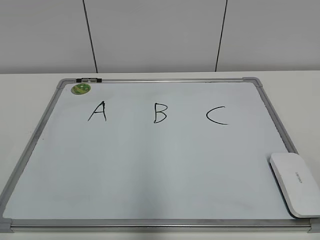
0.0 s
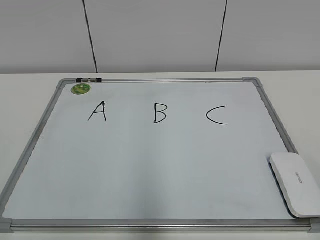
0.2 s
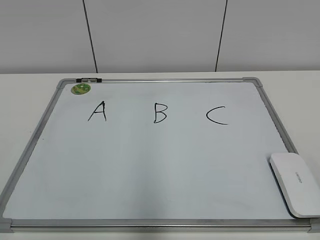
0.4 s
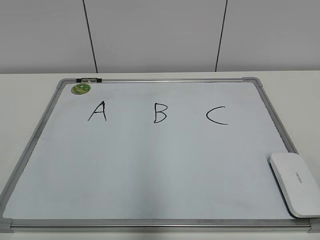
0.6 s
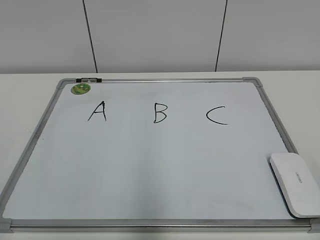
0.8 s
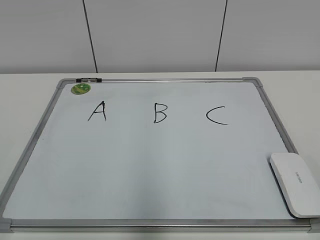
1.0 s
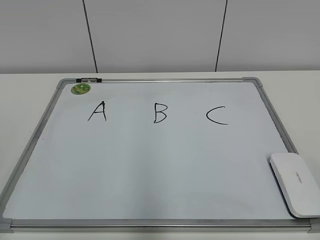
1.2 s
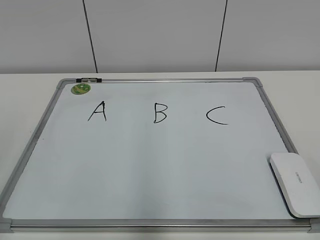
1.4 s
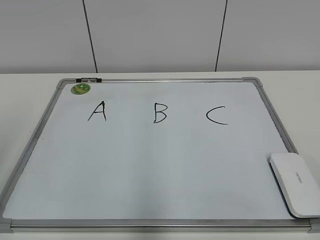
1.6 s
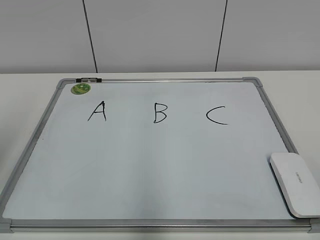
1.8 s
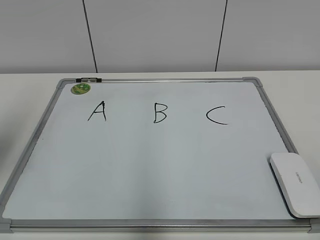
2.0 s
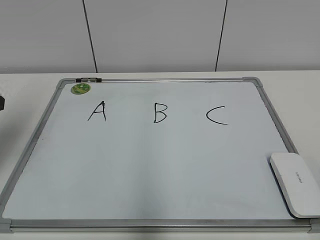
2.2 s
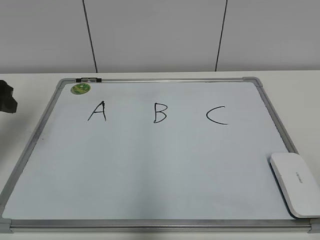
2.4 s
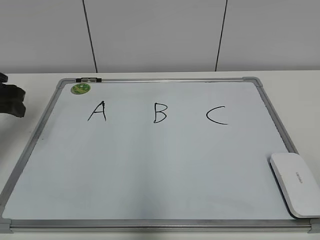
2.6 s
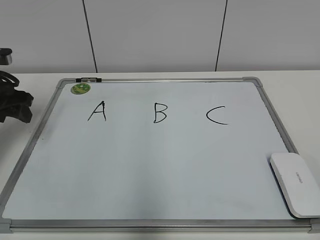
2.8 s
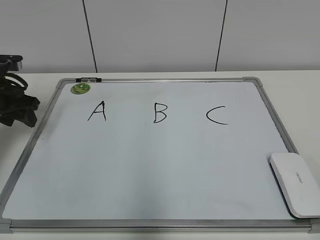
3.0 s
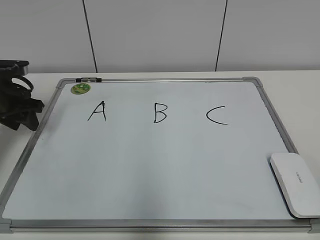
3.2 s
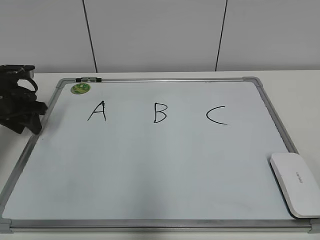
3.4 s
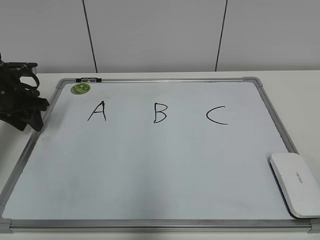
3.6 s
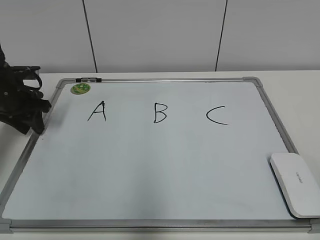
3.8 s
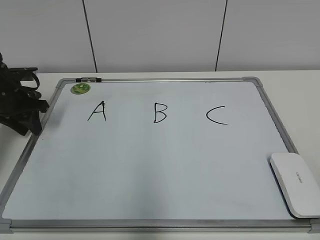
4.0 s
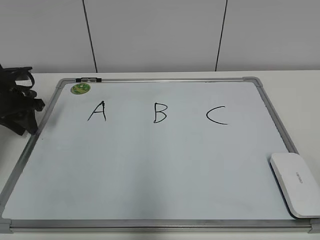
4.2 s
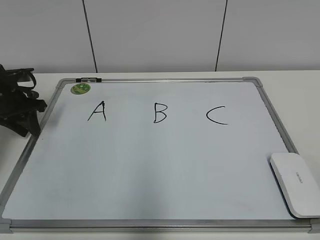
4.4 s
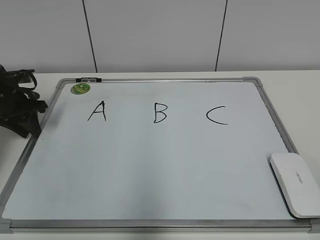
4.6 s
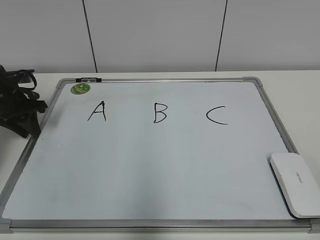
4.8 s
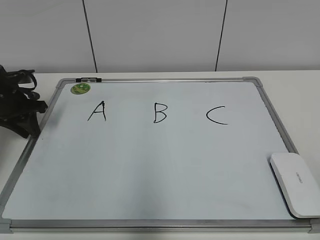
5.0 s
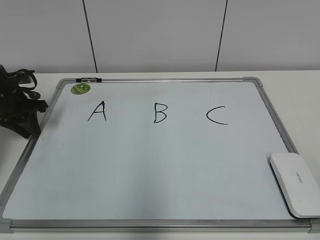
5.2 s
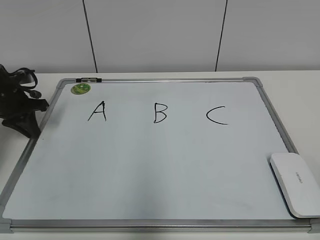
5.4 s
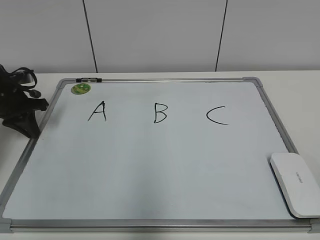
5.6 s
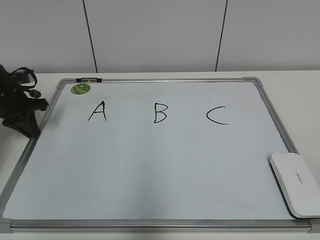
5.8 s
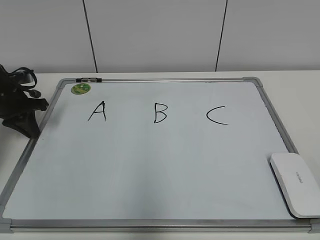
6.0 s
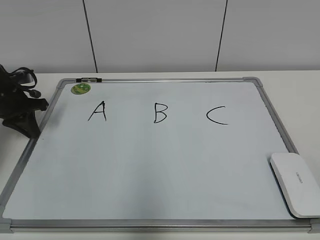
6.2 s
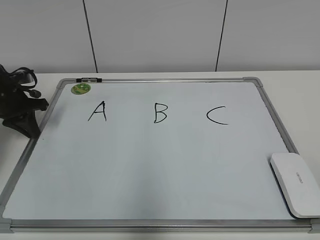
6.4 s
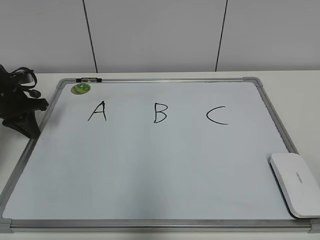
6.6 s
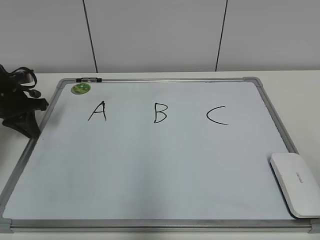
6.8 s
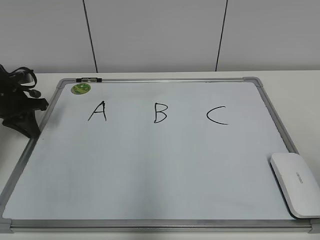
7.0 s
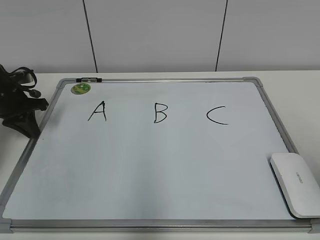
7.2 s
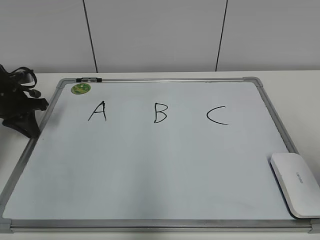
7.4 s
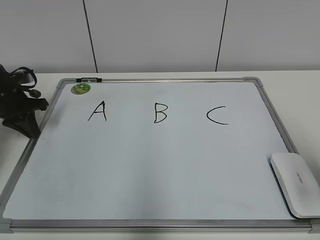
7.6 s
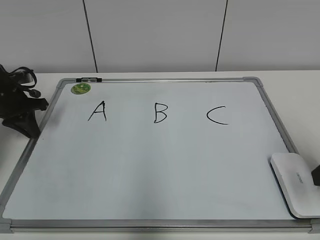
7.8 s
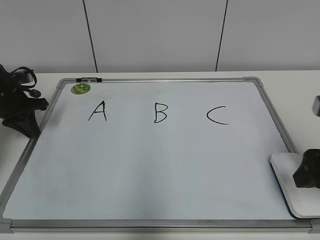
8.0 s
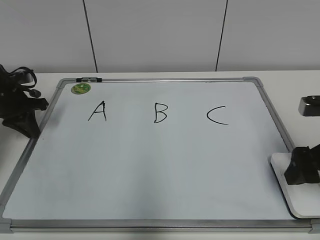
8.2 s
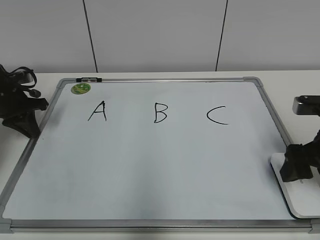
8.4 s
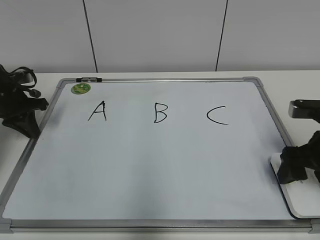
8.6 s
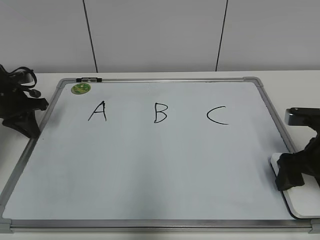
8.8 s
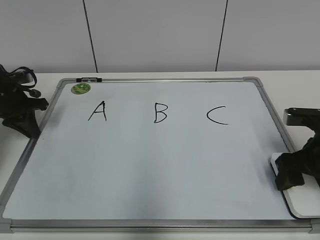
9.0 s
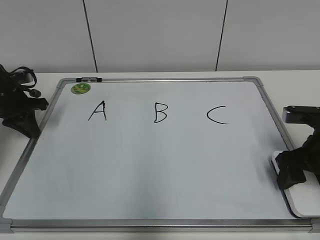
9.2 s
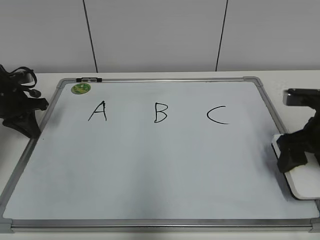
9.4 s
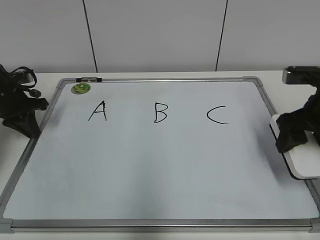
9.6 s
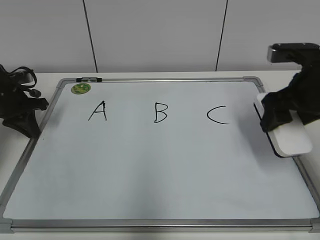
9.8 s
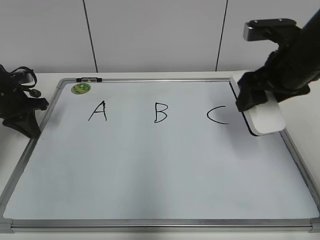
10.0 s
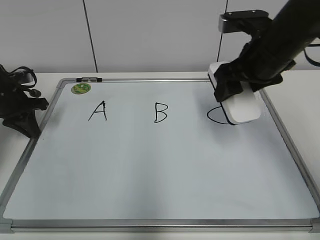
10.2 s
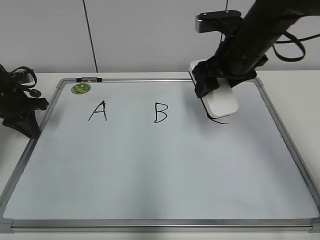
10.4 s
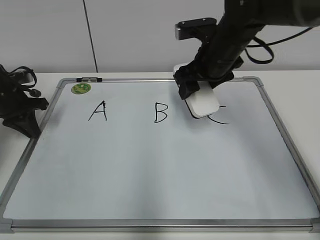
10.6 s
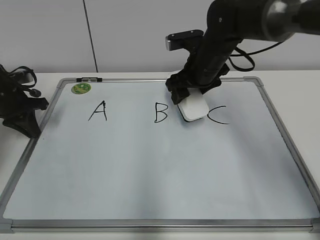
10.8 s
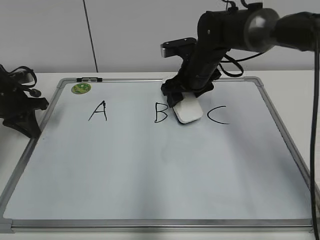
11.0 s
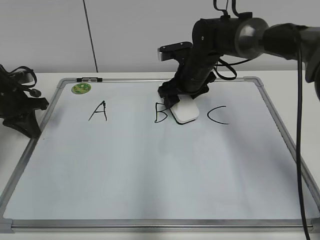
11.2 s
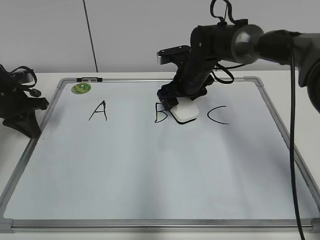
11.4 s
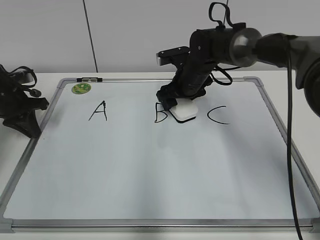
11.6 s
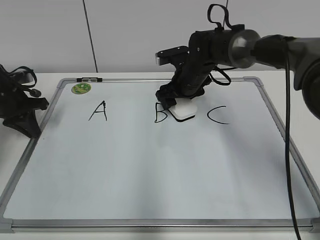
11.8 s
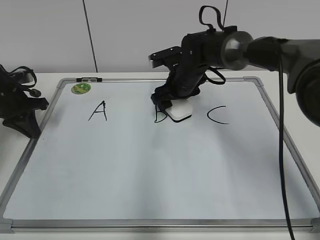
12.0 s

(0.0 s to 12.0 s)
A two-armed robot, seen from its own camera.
Task of the whole recording: pick up the eraser on the blackboard and erase the letter "B".
Step, 0.0 s - 5.2 s: Hold the drawing board steady with your left hand.
Step, 5.4 s - 9.0 s: Grab the eraser with your right hand.
1.6 s - 3.0 s: The left gripper is displaced forward and downward by approximately 30 cm.
3.0 s - 4.4 s: The left gripper ends up roughly 5 cm from where it was, and closes.
4.4 s - 6.0 s: The left gripper closes its fingers.
6.0 s - 7.6 s: The right gripper is displaced forward by approximately 20 cm, and opens.
7.6 s - 9.0 s: The right gripper shifts roughly 15 cm forward and downward, and closes its fingers.
9.0 s - 10.4 s: The right gripper heads to the left, upward and forward, covering roughly 20 cm.
10.4 s - 12.0 s: The right gripper shifts roughly 15 cm downward, forward and to the left.

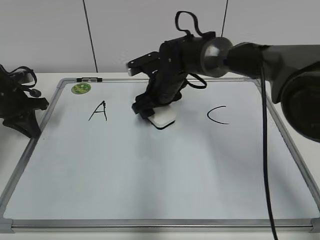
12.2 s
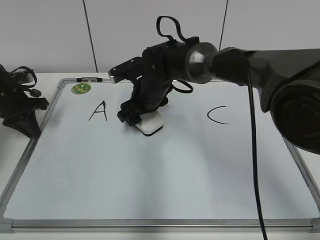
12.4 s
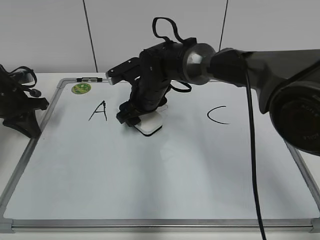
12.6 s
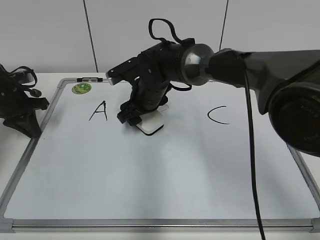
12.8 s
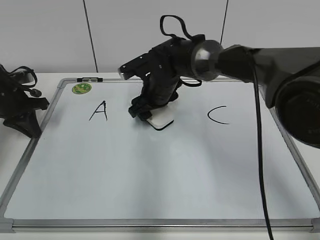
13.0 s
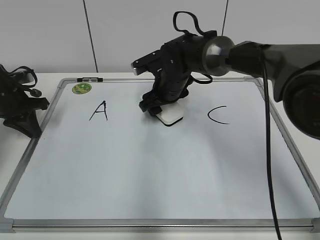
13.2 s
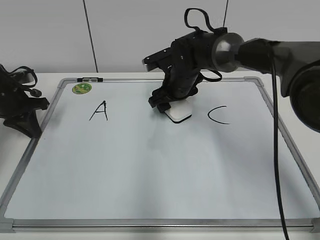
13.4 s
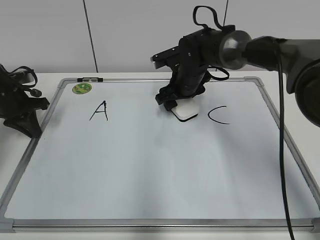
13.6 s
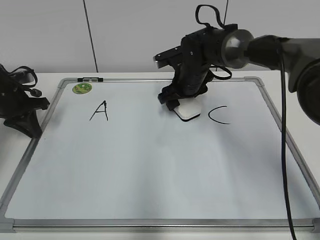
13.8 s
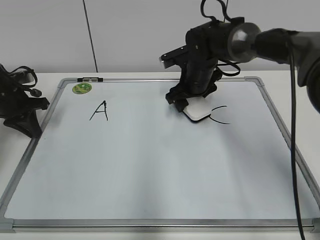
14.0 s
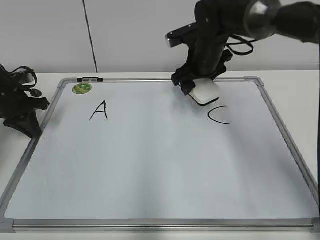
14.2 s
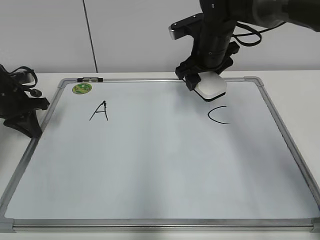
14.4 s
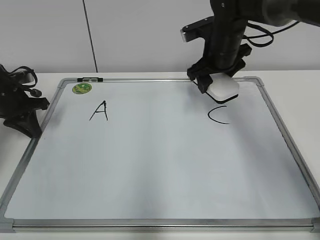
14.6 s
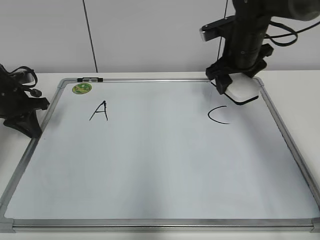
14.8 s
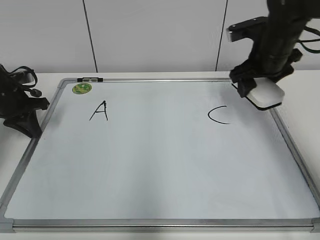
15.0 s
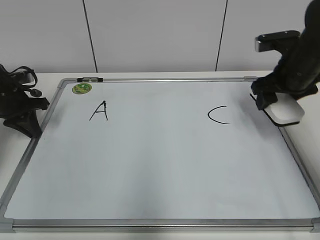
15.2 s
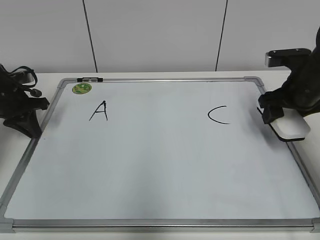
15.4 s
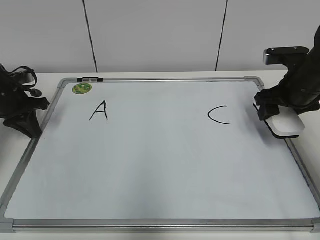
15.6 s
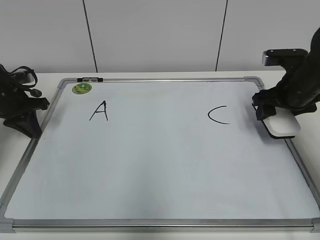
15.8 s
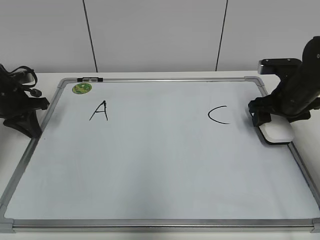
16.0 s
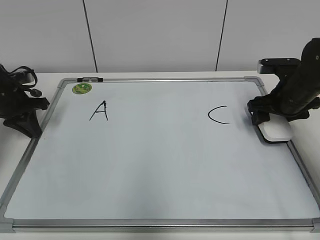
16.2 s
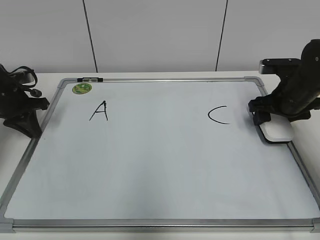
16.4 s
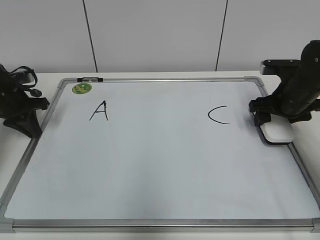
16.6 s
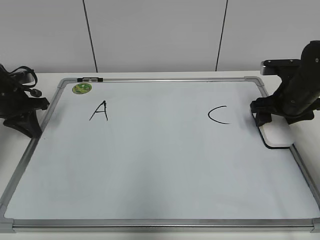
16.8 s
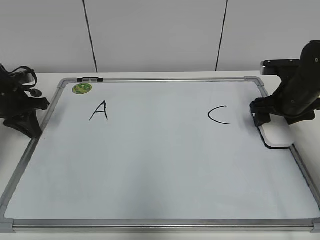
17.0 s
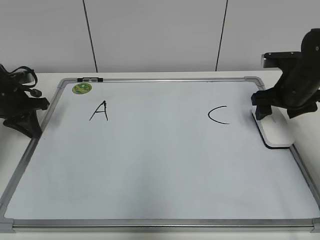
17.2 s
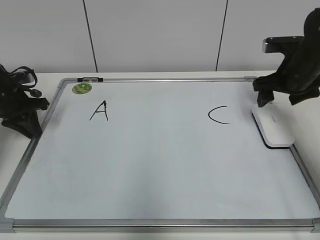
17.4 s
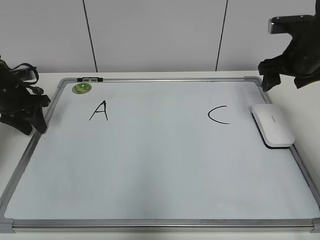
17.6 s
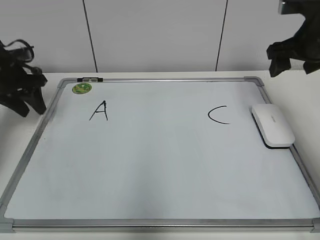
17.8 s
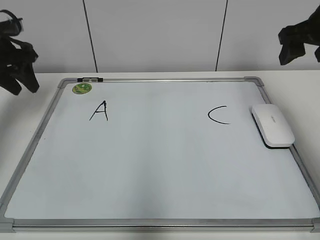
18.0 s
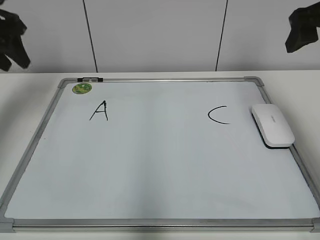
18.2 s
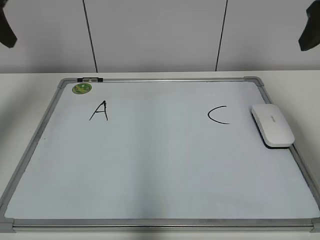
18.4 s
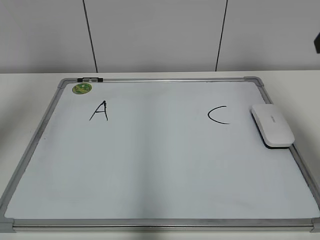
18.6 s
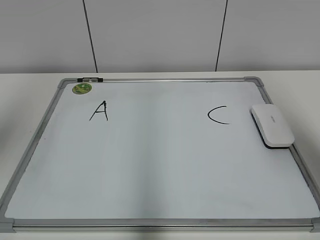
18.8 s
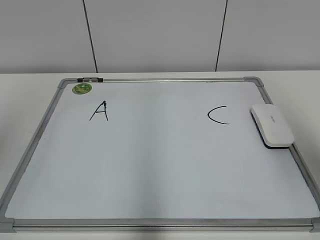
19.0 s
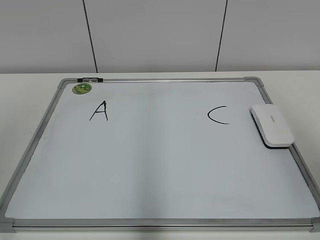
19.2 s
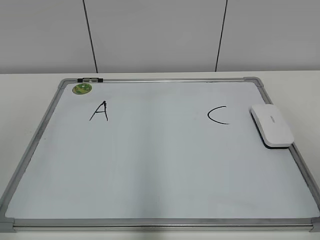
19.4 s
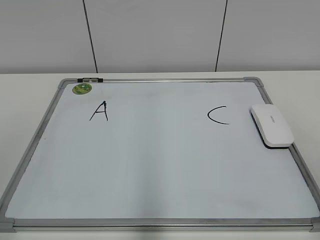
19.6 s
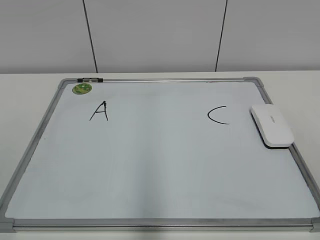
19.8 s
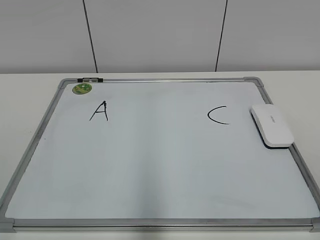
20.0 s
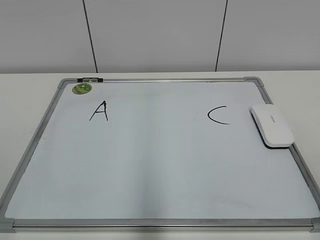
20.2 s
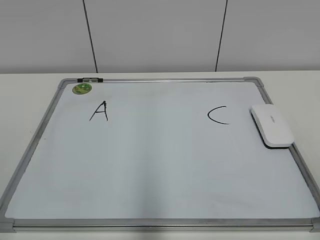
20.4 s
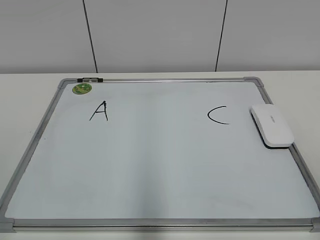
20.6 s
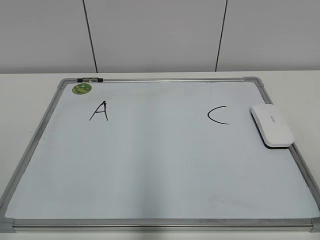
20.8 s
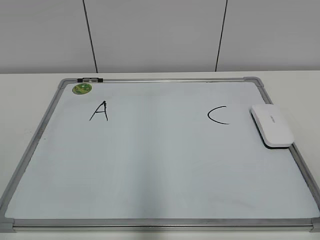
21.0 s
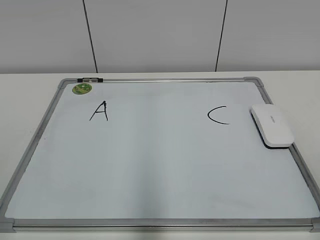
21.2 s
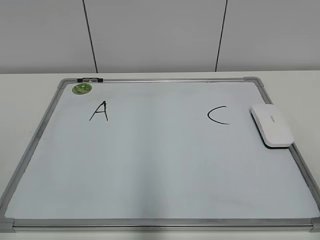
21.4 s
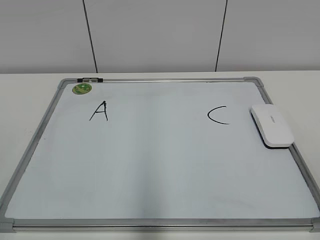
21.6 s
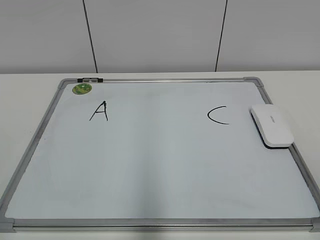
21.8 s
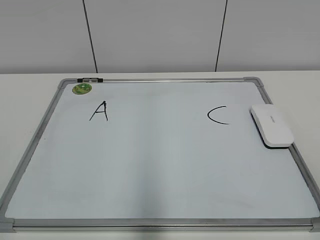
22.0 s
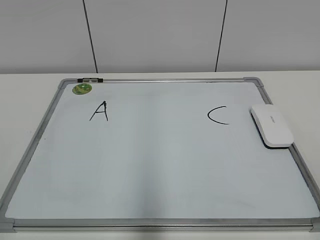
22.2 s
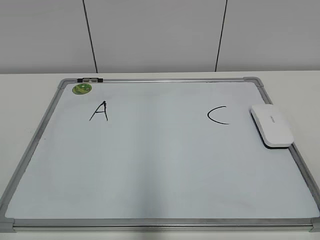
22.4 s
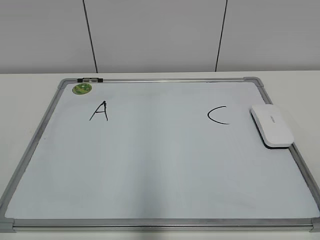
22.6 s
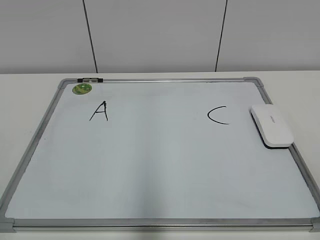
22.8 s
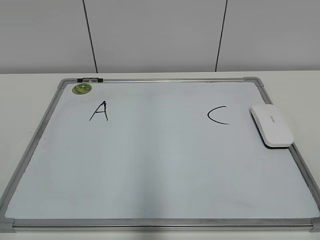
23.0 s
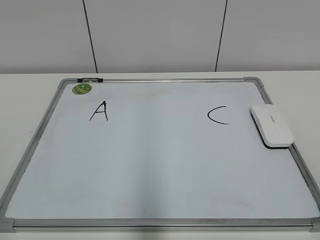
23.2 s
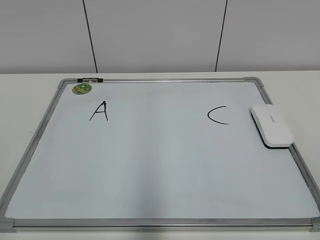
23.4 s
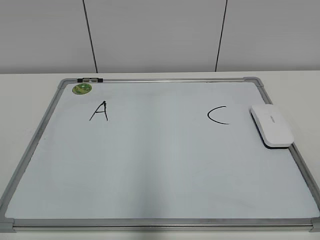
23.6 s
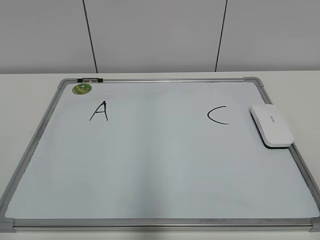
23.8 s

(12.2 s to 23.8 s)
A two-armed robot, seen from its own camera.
Task of the whole recording: pick up the eraser on the blackboard and erase the letter "B".
Step, 14.0 s - 16.6 s: Put down the eraser with your right hand.
12.2 s - 13.6 s: The right gripper moves roughly 5 cm.
13.6 s - 15.0 s: The right gripper travels to the right and upward by approximately 15 cm.
15.0 s - 16.6 s: The right gripper shifts approximately 10 cm downward and to the right.
16.6 s - 18.0 s: Both grippers move upward, some 15 cm. The right gripper opens up; the left gripper opens its fingers.
18.0 s - 19.4 s: The grippers both shift backward by approximately 35 cm.
22.4 s - 23.8 s: Both grippers stay about where they are.
